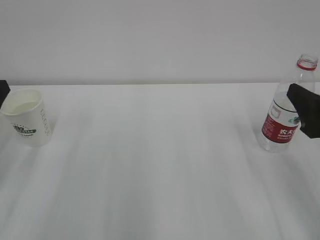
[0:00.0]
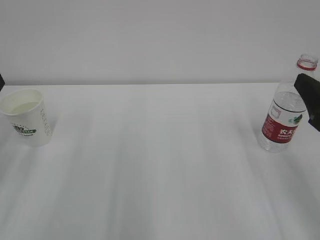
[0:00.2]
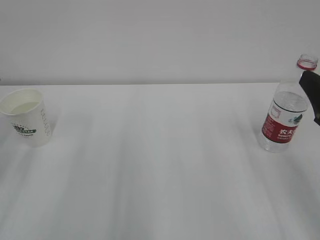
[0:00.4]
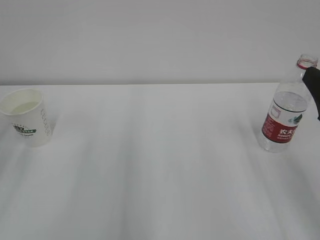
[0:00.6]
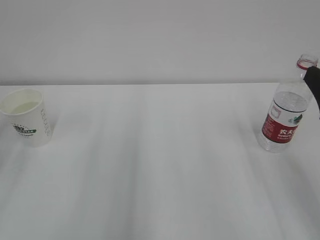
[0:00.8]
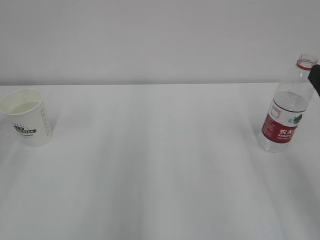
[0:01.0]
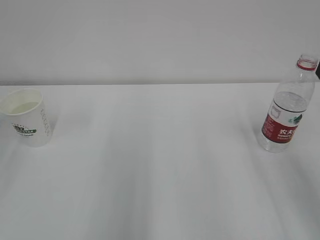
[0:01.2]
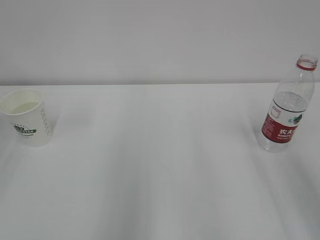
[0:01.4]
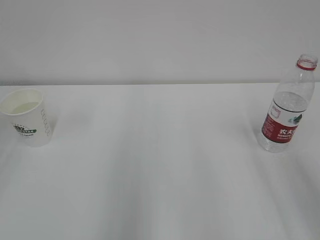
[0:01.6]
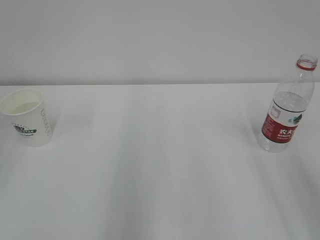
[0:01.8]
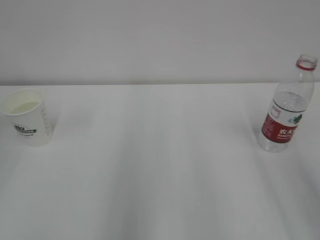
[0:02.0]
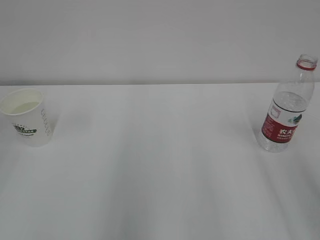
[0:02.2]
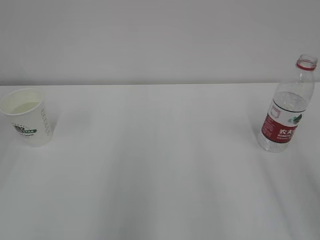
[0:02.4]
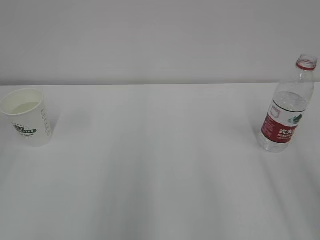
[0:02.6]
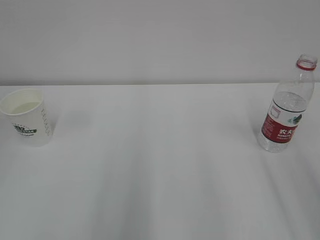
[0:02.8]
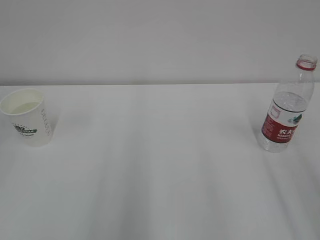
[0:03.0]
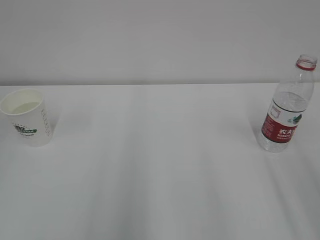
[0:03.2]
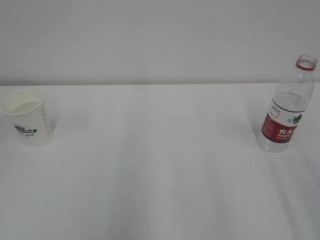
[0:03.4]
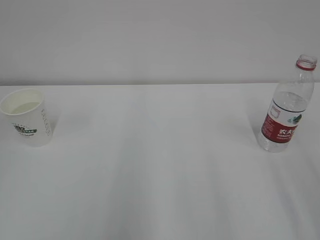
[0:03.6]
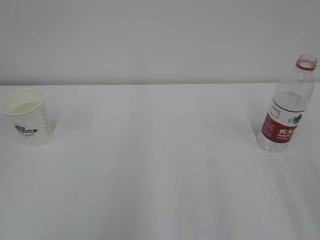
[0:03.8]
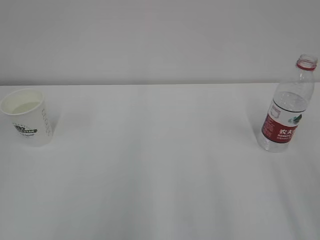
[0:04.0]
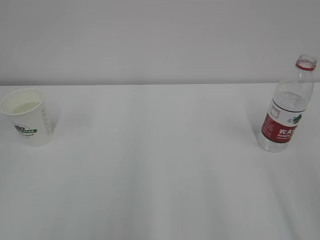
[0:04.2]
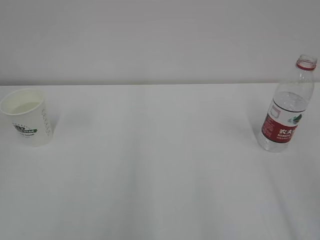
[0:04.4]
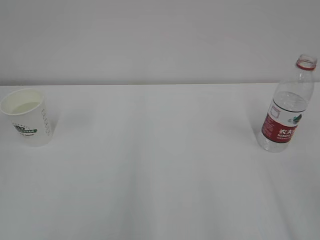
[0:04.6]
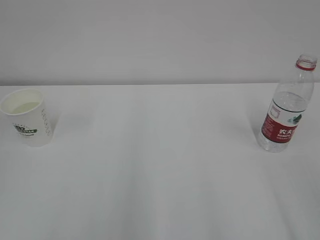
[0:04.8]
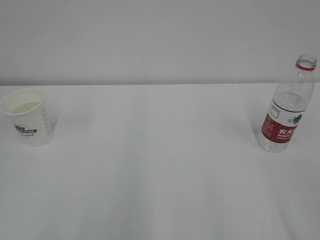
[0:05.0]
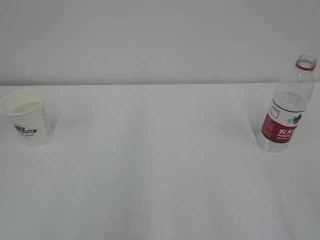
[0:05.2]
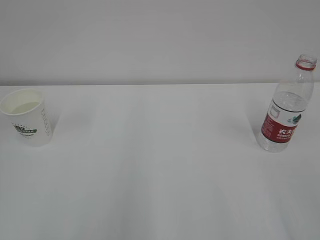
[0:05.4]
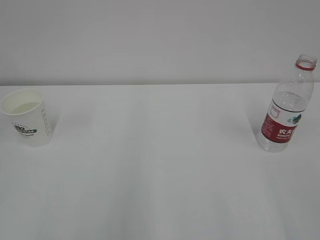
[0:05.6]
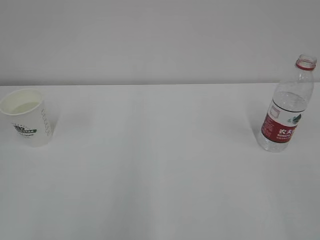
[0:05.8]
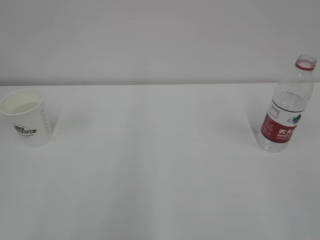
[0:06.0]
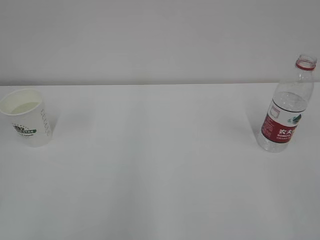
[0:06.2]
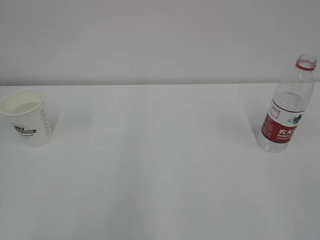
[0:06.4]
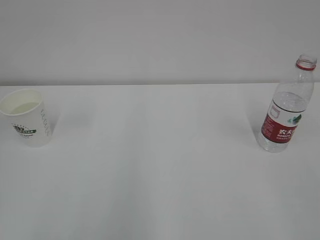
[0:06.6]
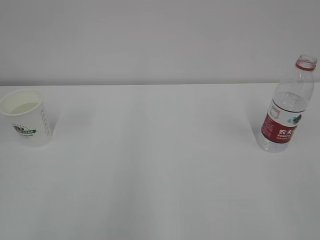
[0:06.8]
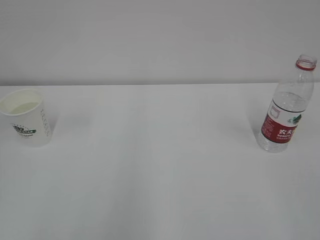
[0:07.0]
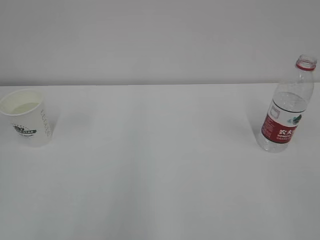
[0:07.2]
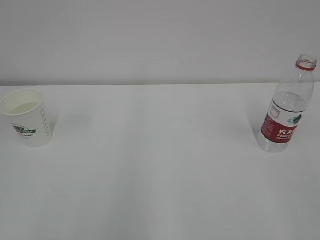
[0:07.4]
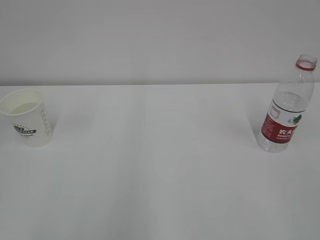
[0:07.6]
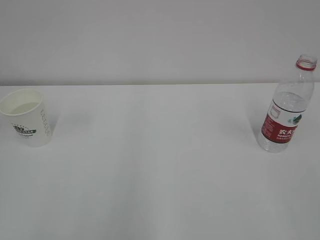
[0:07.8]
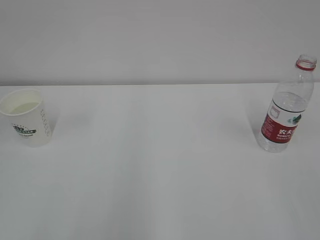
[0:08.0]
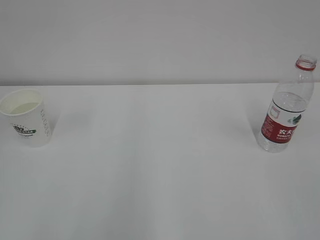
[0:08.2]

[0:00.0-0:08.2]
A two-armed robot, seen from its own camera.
0:00.0 to 0:01.6: The right gripper shifts some 10 cm upward and backward.
0:06.6 to 0:08.2: The two grippers keep their place.
